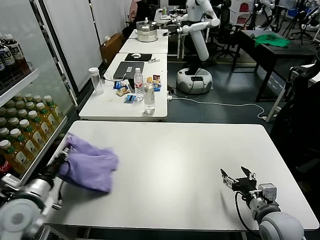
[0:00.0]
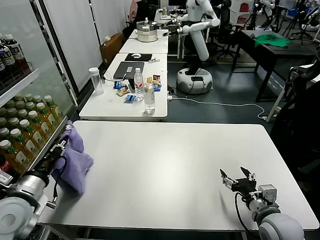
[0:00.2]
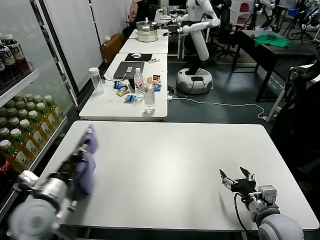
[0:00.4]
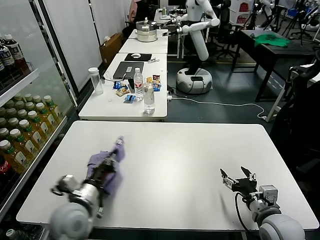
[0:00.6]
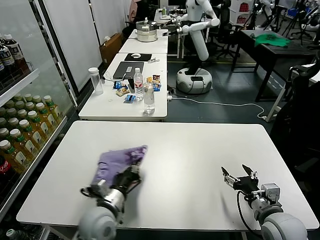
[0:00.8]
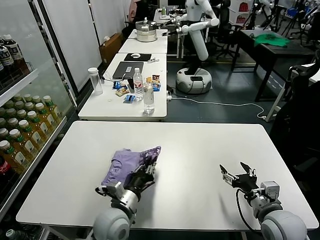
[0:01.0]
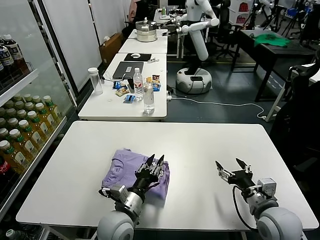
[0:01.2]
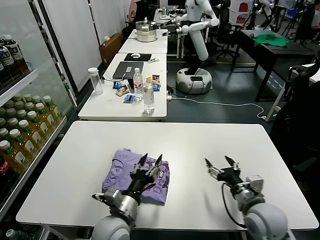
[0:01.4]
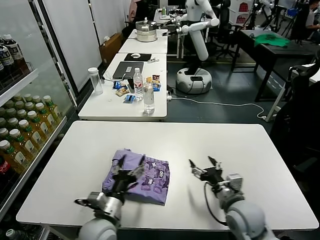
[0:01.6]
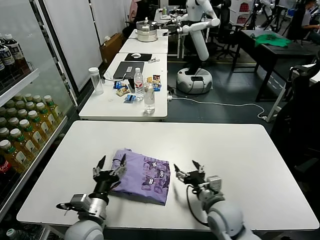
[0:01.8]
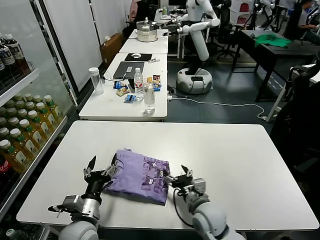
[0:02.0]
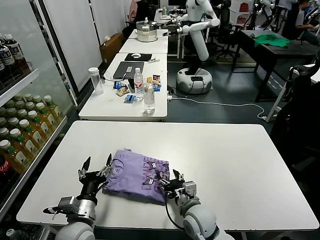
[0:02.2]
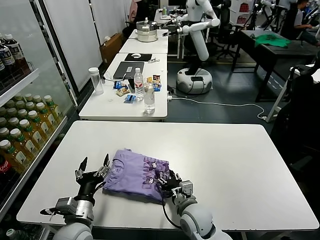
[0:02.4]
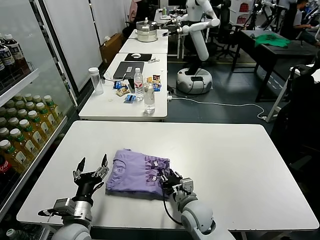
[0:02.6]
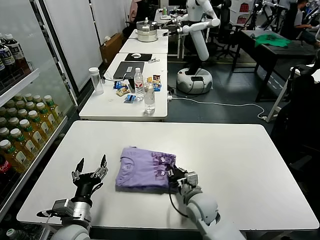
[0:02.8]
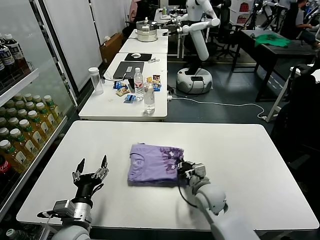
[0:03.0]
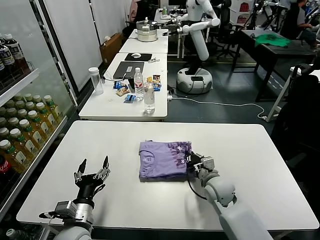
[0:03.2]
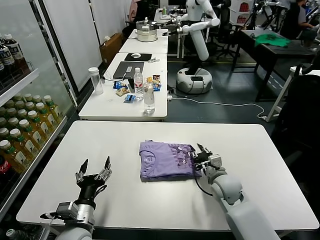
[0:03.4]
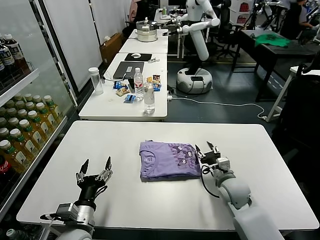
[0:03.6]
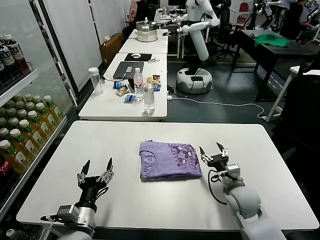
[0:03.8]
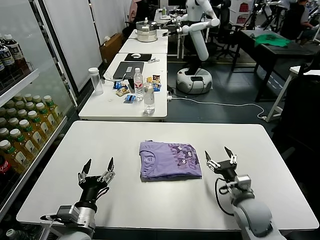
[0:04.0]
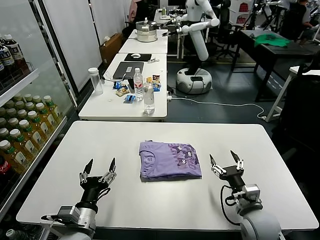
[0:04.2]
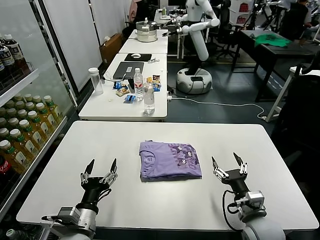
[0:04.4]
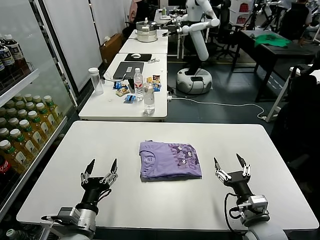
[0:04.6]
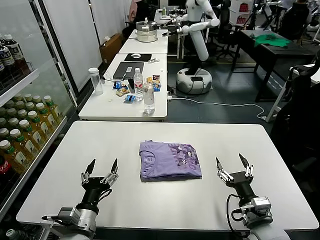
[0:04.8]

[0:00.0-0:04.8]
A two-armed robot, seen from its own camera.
Task of the whole recording: fold and organize the clothes.
Step, 0:01.8 to 0:03.8: Drag the clothes to the center of the table.
0:00.0 to 0:01.6: The left gripper moves to the right, roughly 20 cm, and opens its fingers; the right gripper goes roughly 5 cm to the left.
0:01.6 to 0:03.2: The right gripper shifts some 15 cm forward, downward and to the left, and closes up, while the left gripper moves to the left, roughly 10 cm.
0:03.2 to 0:04.8: The right gripper heads backward and to the right, covering about 20 cm, and opens up.

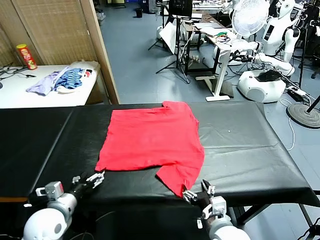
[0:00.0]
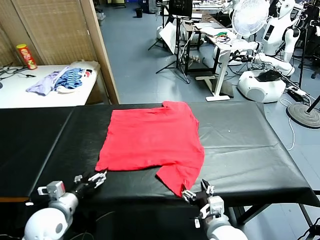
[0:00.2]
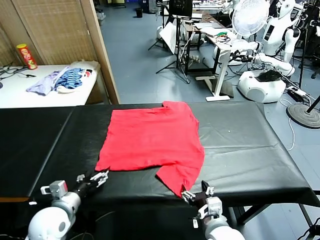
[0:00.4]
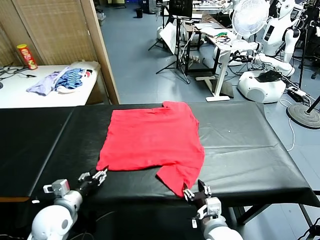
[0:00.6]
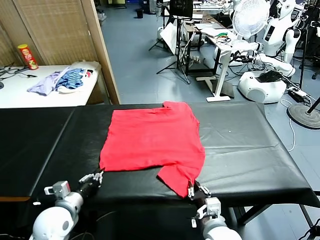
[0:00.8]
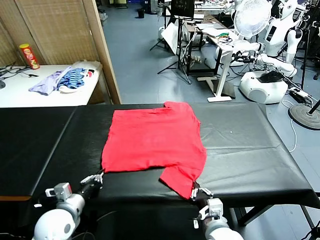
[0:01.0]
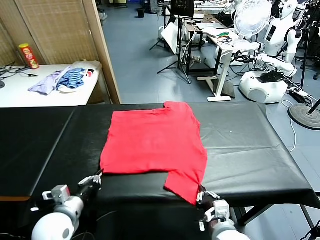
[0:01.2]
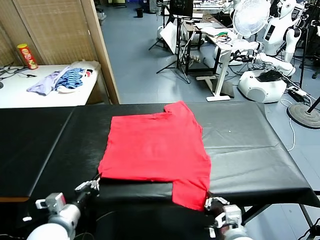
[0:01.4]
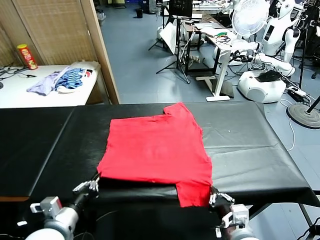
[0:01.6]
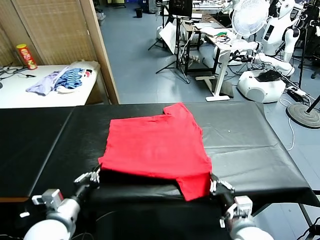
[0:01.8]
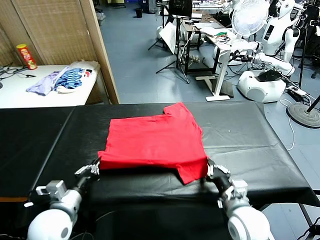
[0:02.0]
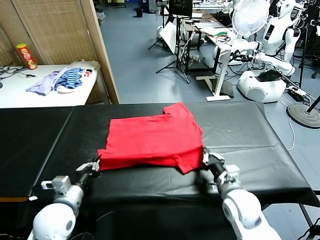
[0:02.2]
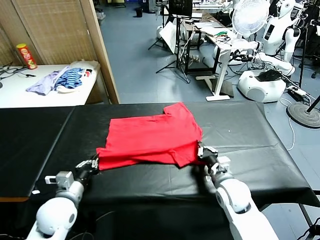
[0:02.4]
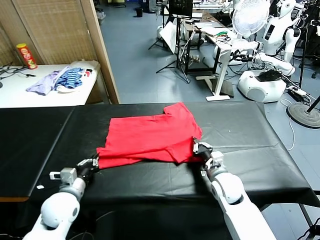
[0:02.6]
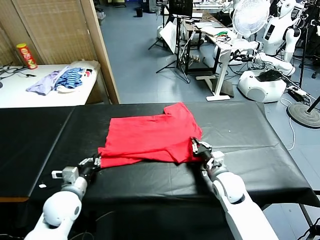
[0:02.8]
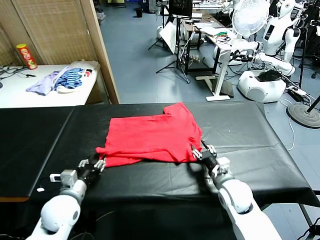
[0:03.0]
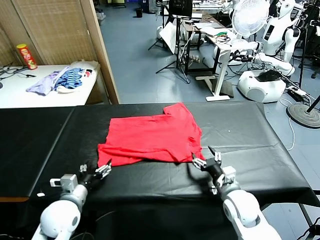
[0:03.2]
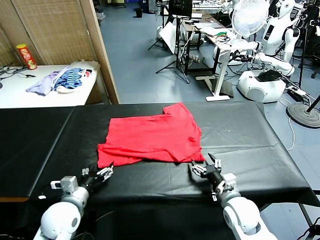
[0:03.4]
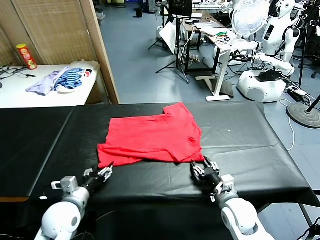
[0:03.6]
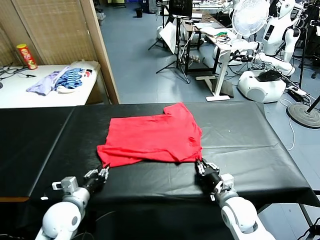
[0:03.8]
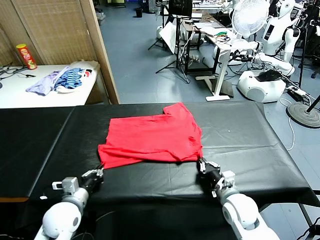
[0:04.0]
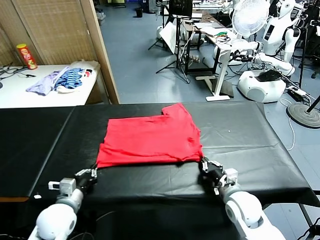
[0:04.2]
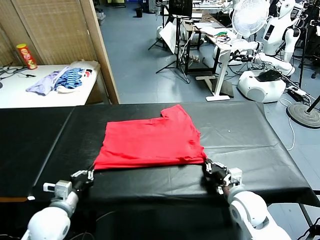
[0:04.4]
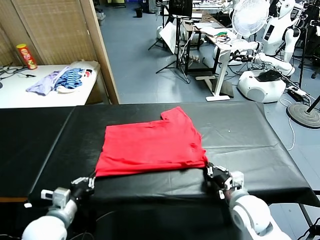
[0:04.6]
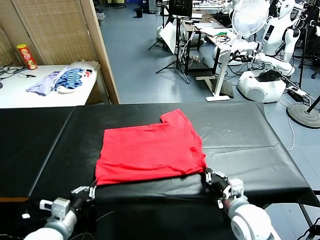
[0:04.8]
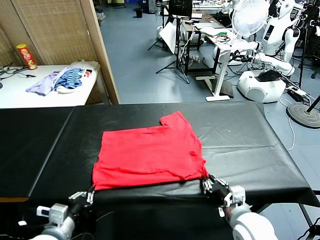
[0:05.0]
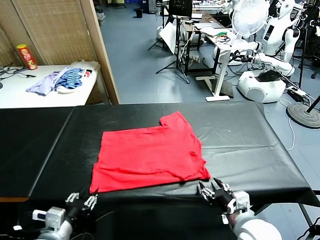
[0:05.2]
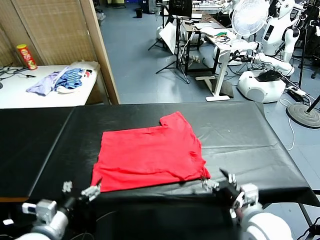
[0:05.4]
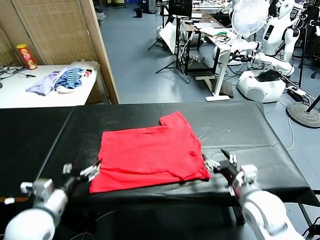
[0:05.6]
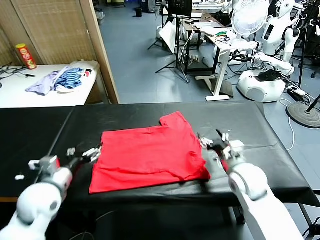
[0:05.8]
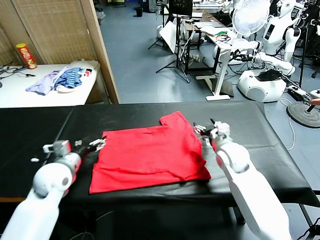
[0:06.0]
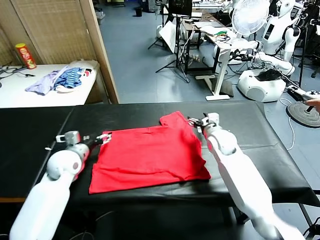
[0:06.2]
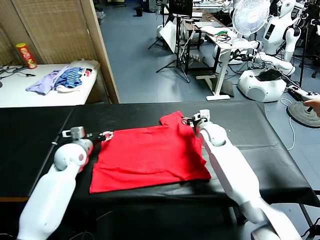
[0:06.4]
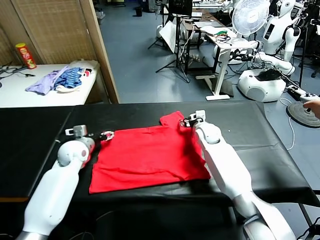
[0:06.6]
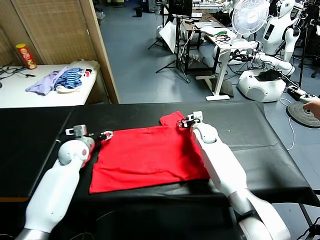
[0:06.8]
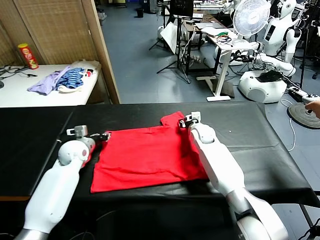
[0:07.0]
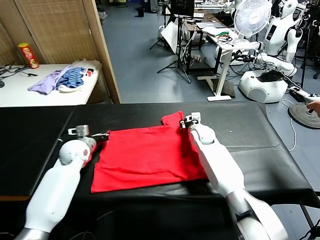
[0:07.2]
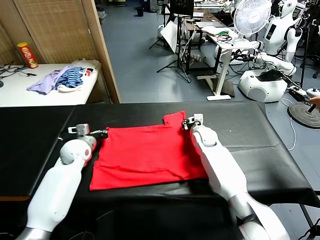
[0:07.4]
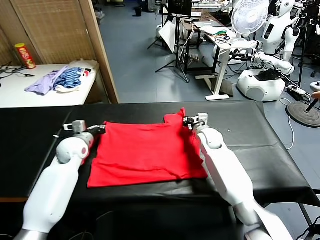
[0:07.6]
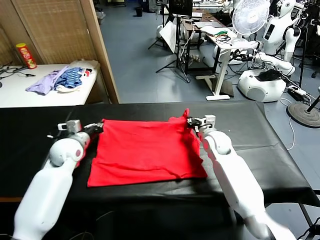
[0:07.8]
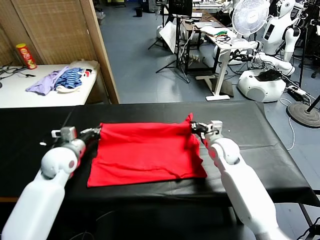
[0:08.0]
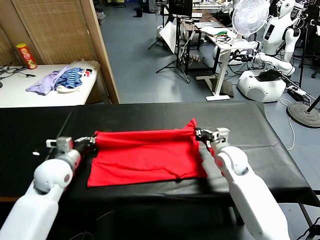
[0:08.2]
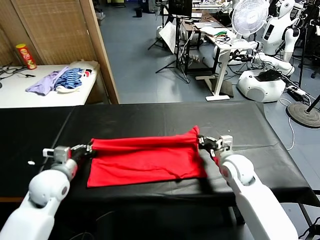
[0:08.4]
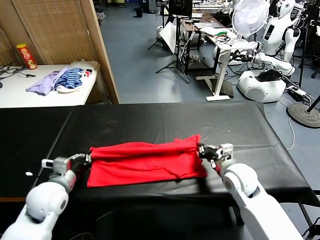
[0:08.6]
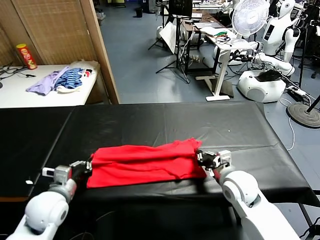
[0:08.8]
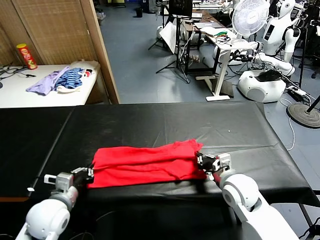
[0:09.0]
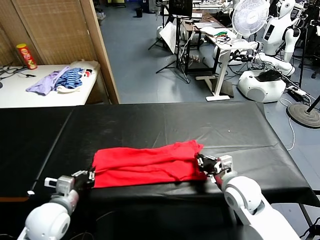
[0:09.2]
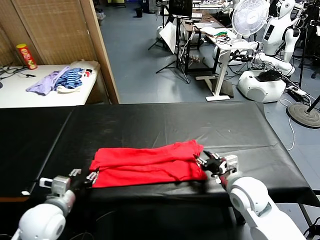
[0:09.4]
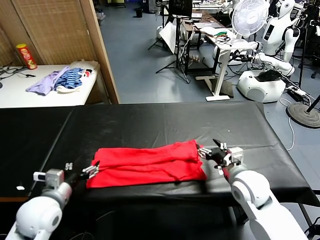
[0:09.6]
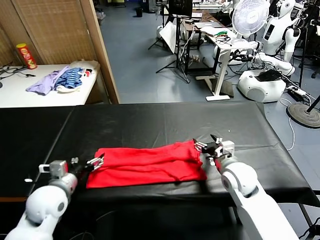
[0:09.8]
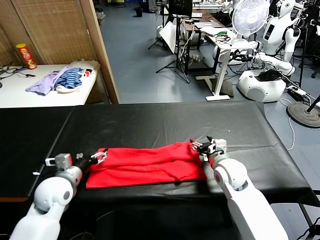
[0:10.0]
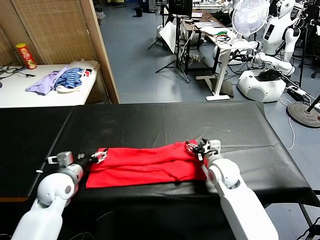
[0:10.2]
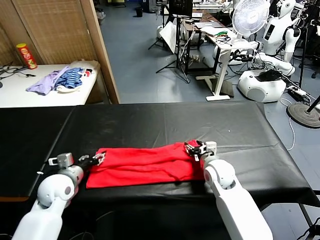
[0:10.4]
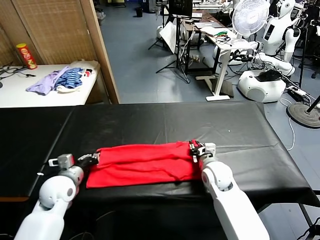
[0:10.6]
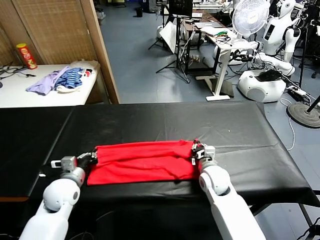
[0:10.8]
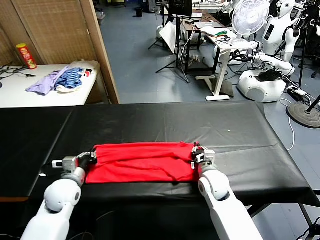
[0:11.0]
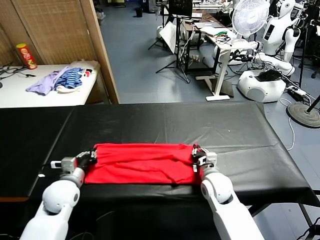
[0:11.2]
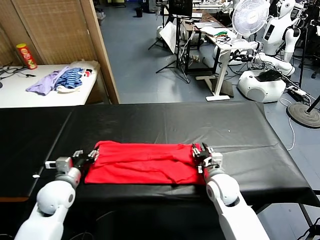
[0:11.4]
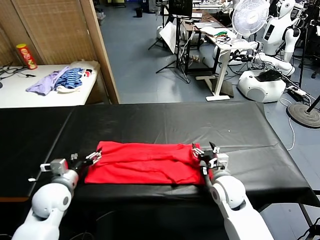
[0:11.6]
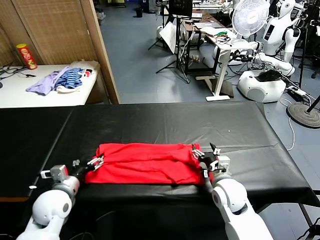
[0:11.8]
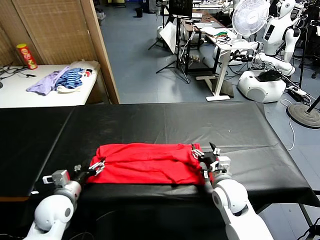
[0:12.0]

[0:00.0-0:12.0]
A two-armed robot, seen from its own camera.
Task of the whole recording: fold and organize the clothes.
Step, 0:00.0 to 0:00.8: use both grippers simultaneously to clamp the lower edge of the clothing fabric.
Step, 0:01.0 to 0:02.8: use both grippers to drag the lower edge of the fabric forward and fold it over the upper edge.
Step, 0:03.0 to 0:05.0: Drag the clothes downward with both gripper.
Step, 0:05.2 to 0:07.2: use both grippers simultaneously to clamp the upper edge of the clothing fabric.
Step, 0:07.4 to 0:09.2: use both grippers to drag the upper edge of the fabric backward and fold it over the lower edge.
0:01.6 to 0:03.0: Both grippers move forward, approximately 10 cm. The right gripper opens its fingers, while the left gripper opens up.
0:03.0 to 0:04.4: The left gripper closes. Meanwhile the right gripper closes up.
0:04.4 to 0:06.0: Both grippers travel together forward, about 20 cm. The right gripper opens. Meanwhile the left gripper opens.
0:06.0 to 0:07.6: The left gripper travels forward by approximately 5 cm, and closes up; the right gripper closes up.
0:07.6 to 0:09.0: The two grippers go approximately 20 cm backward.
0:09.0 to 0:10.4: The left gripper goes approximately 10 cm forward, and opens its fingers, while the right gripper is displaced forward and downward by about 10 cm, and opens, then closes again.
0:10.4 to 0:12.0: Both grippers move backward, some 5 cm. The left gripper opens. Meanwhile the right gripper opens up.

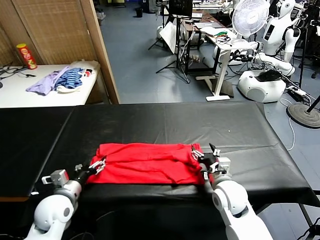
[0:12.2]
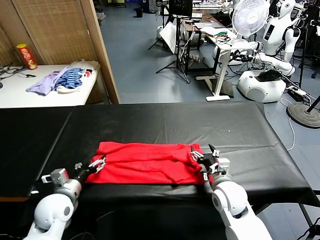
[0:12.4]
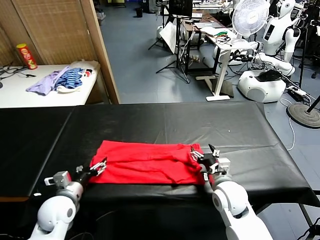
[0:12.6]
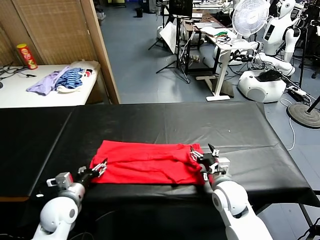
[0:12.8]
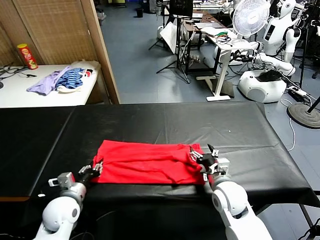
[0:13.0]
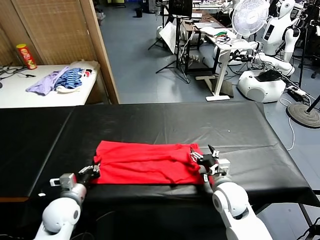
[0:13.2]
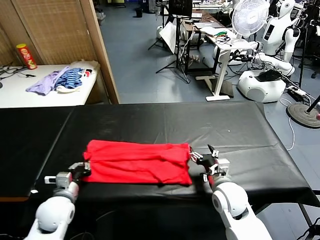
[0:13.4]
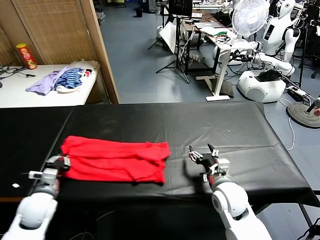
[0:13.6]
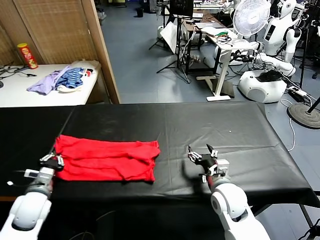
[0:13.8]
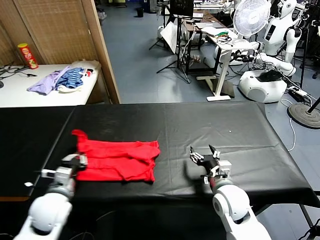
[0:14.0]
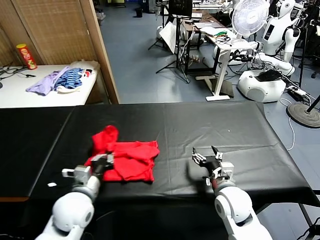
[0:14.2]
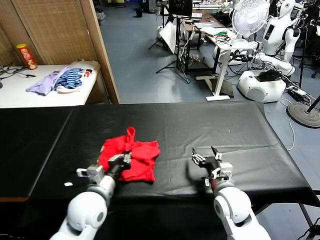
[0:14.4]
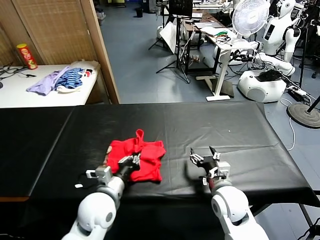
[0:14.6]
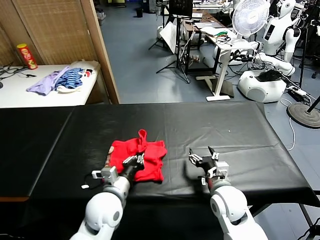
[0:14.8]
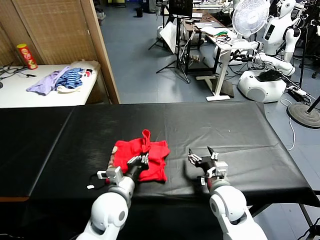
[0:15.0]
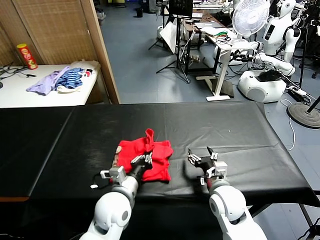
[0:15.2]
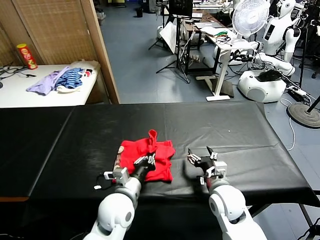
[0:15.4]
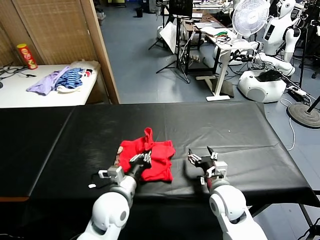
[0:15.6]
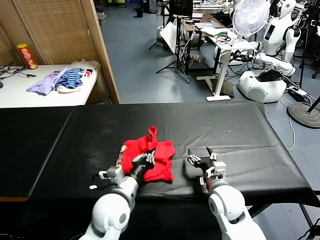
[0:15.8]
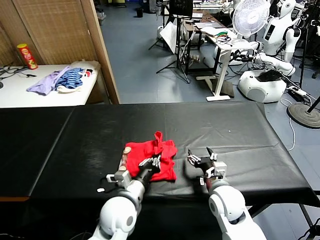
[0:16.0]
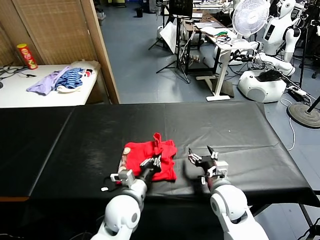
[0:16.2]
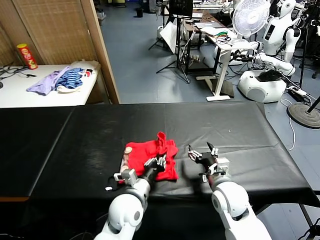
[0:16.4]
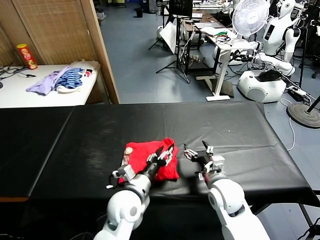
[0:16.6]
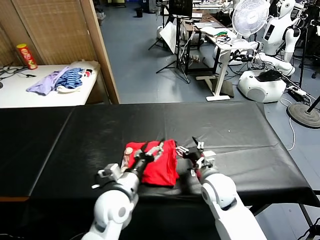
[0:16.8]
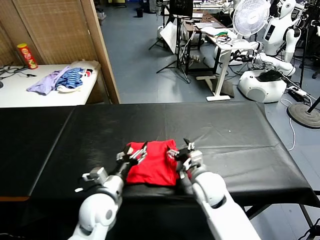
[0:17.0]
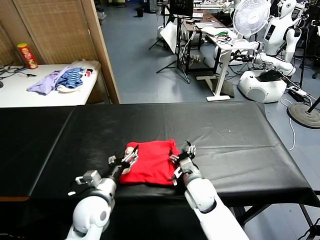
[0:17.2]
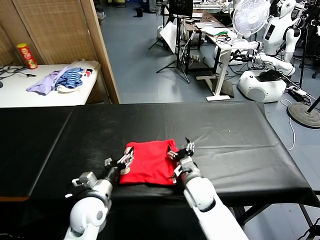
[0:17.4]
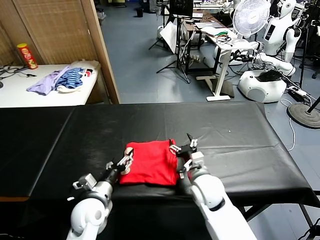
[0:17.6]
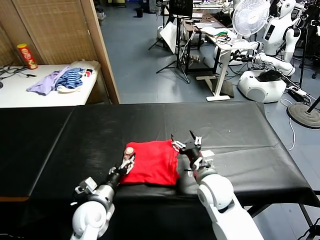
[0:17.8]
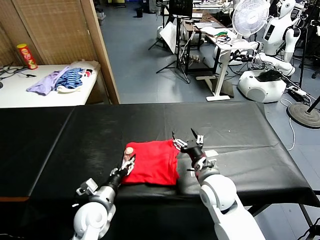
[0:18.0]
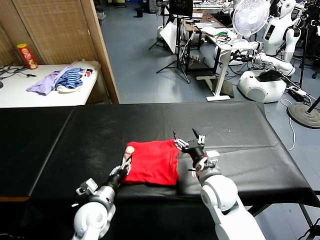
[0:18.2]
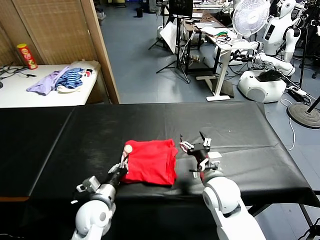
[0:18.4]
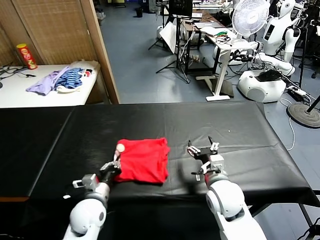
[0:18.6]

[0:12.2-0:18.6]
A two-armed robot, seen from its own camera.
Task of the whole recording: fold and organize the clothes.
Step, 0:13.4 to 0:16.4: use the left gripper to drag the left edge of the fabric to the left and folds it over the right edge.
0:12.2 to 0:13.8: The left gripper goes some 5 cm to the left, and closes up.
0:13.8 to 0:15.4: The left gripper goes some 25 cm to the right.
0:15.4 to 0:17.0: The grippers both shift to the left by about 5 cm. The left gripper opens up.
0:17.0 to 0:18.6: The left gripper ends up approximately 5 cm from where it was, and closes its fingers. The right gripper ends up some 5 cm from where it was.
